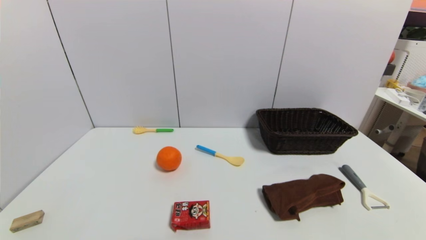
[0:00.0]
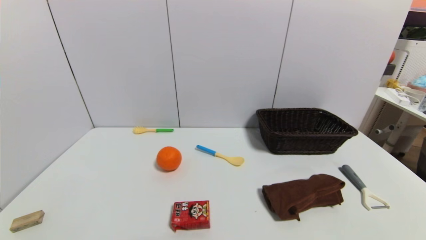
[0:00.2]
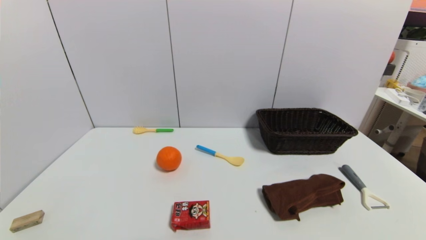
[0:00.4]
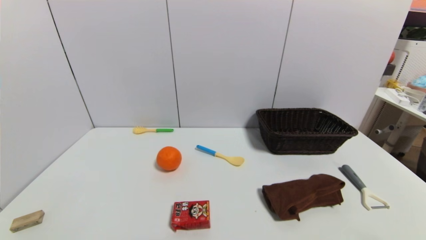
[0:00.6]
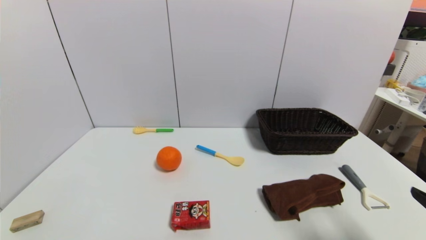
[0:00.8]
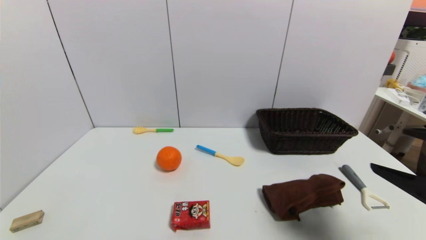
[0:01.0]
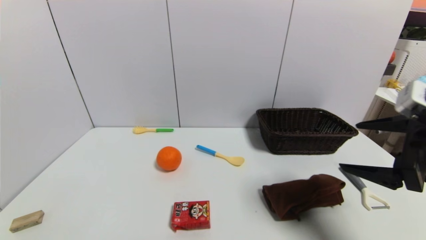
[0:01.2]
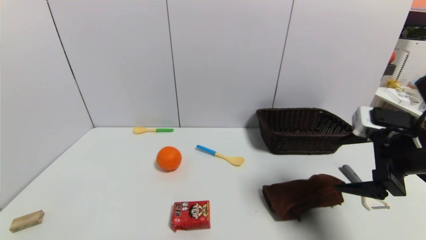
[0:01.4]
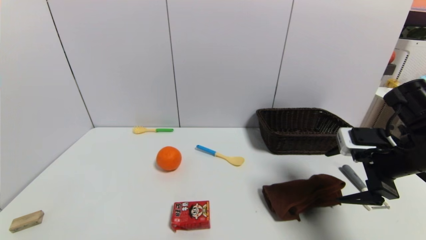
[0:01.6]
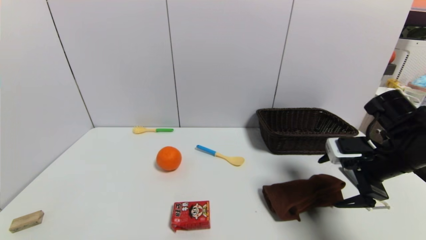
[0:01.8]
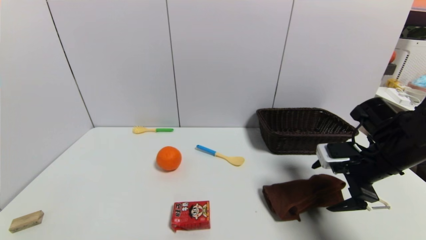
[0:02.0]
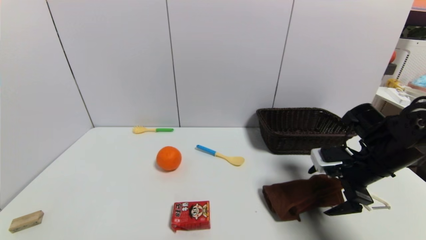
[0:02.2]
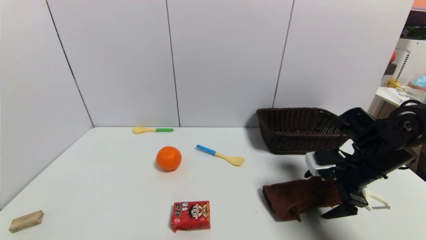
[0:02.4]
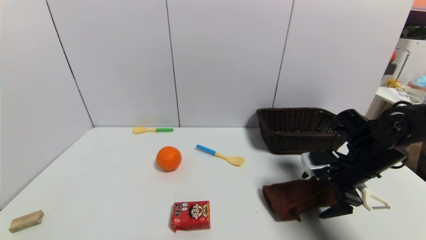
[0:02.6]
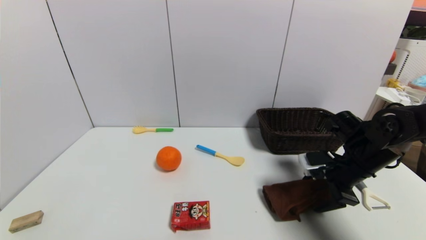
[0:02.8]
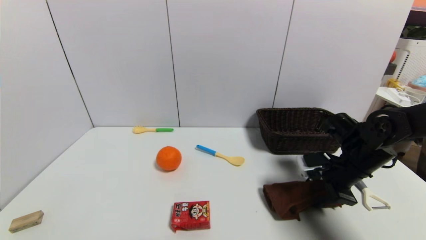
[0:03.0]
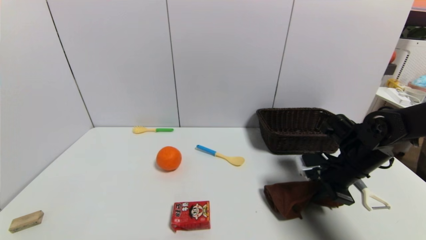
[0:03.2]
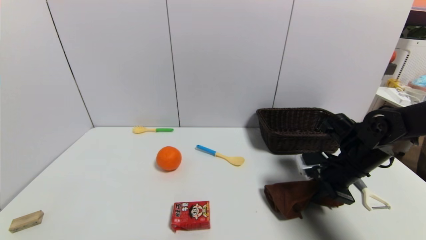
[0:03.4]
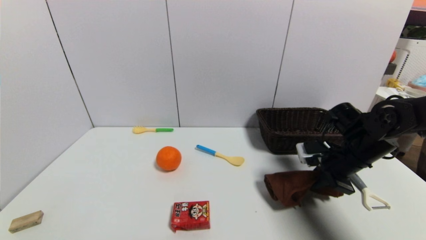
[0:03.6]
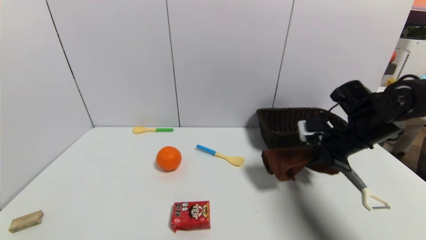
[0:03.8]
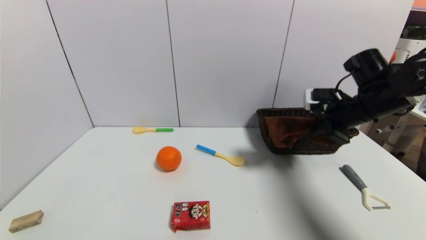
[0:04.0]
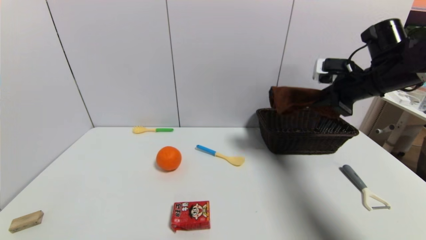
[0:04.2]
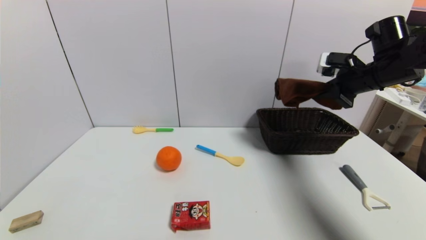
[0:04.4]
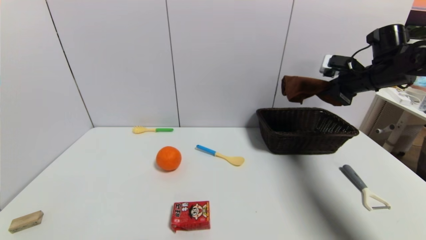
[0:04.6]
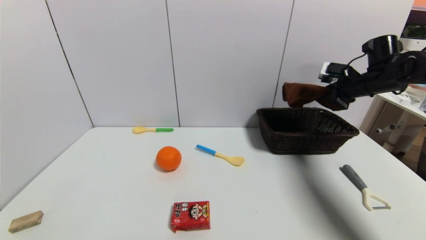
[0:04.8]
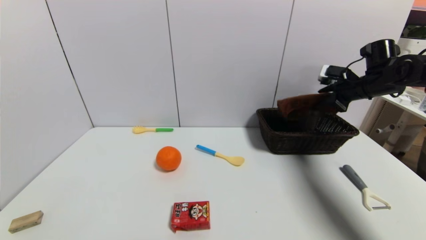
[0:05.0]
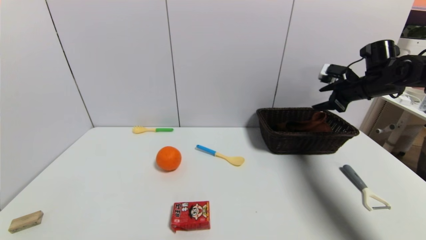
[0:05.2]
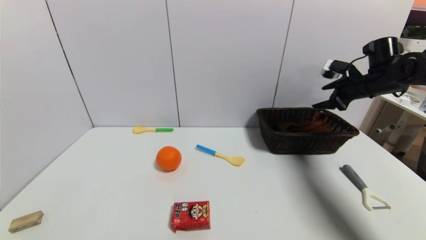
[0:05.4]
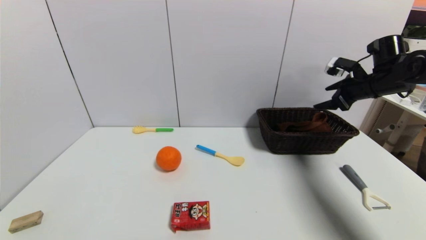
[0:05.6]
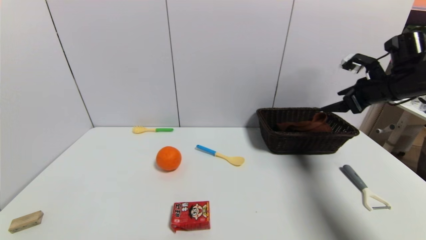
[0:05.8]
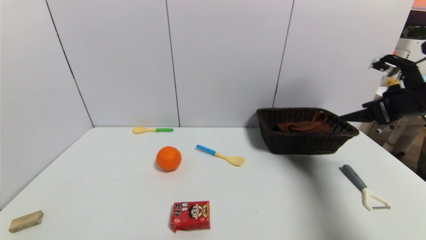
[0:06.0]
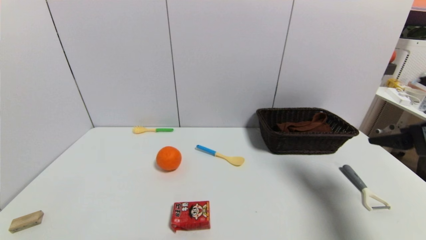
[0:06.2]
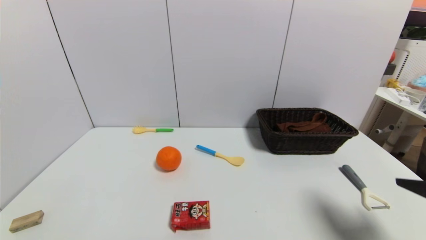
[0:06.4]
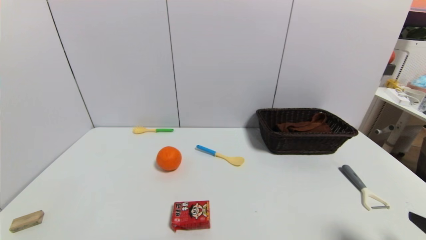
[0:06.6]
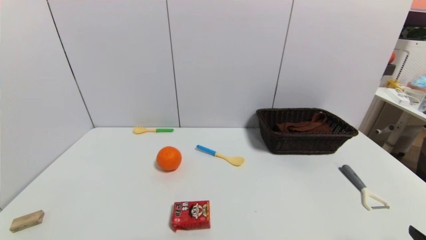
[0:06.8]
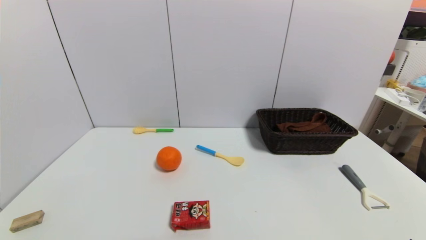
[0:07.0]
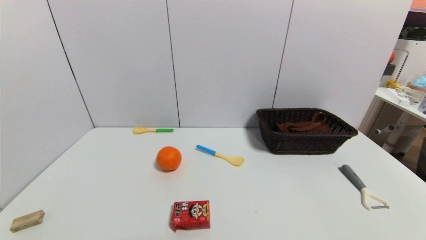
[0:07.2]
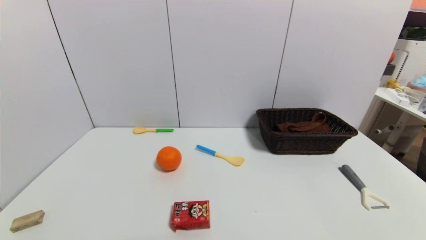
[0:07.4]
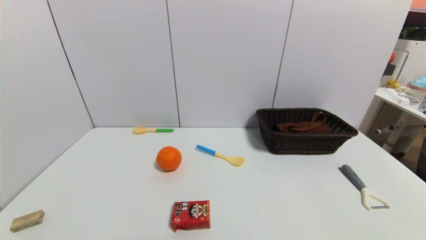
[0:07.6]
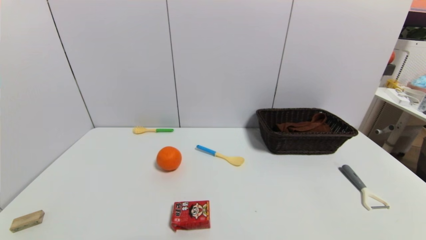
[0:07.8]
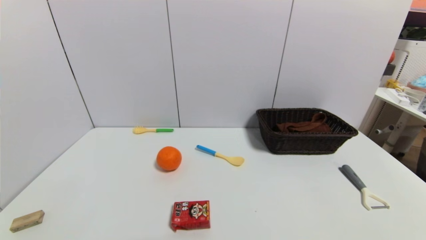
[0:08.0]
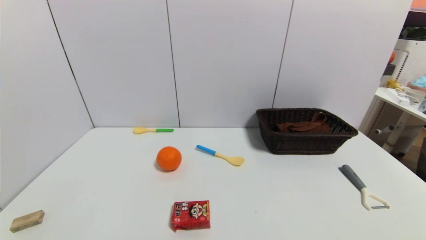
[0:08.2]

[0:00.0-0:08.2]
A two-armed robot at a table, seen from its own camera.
Task of the whole recording: use a gripper to pick the target object and place on the brown basket.
Step, 0:00.0 to 0:03.2: Grasp the brown towel with the right gripper.
Step, 0:03.4 to 0:05.8: Place the brown towel into the basket with the right gripper.
0:00.0 to 0:01.6: The right gripper heads forward and upward, covering some 30 cm.
0:01.6 to 0:03.2: The right gripper heads downward and forward, covering approximately 10 cm, and closes up.
0:03.2 to 0:05.0: The right gripper is displaced forward, upward and to the right by about 20 cm, and opens up.
0:05.0 to 0:06.6: The right gripper goes approximately 40 cm backward, and opens its fingers.

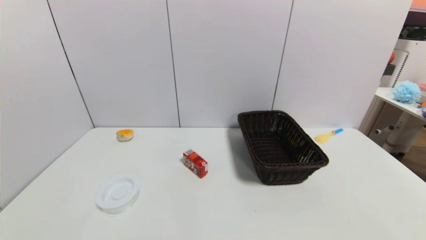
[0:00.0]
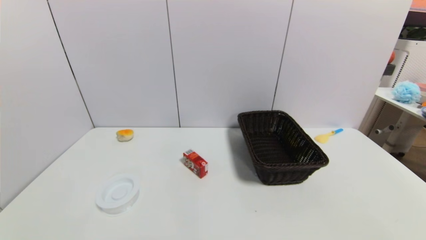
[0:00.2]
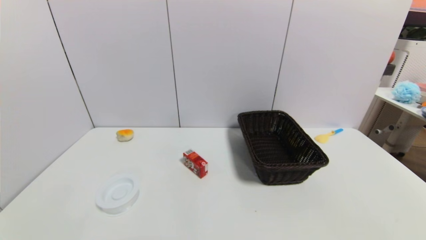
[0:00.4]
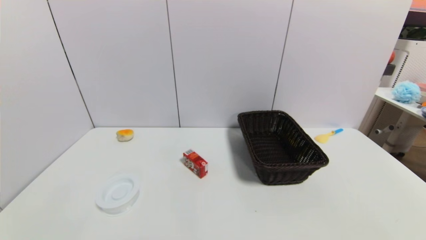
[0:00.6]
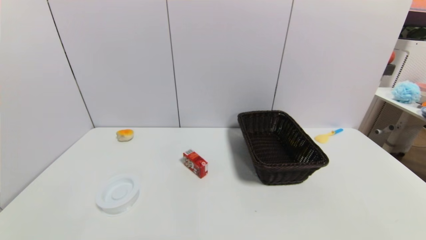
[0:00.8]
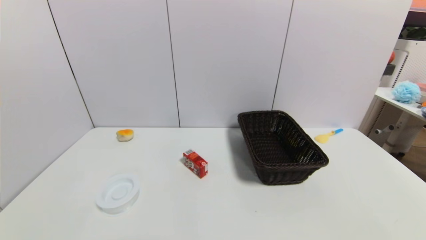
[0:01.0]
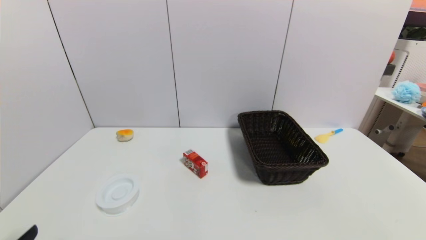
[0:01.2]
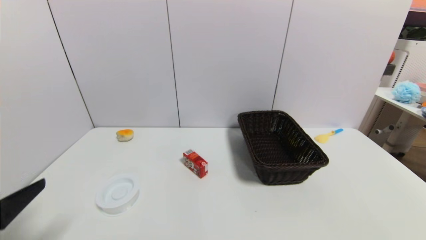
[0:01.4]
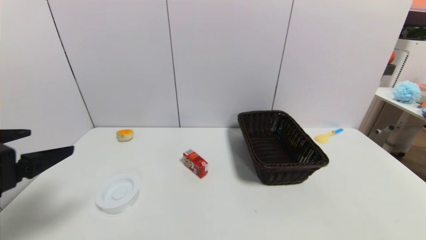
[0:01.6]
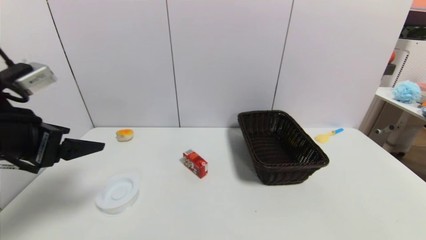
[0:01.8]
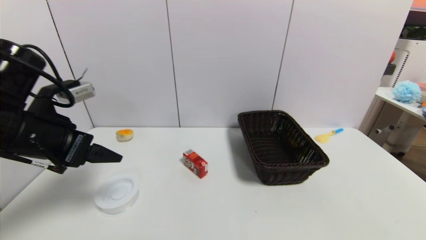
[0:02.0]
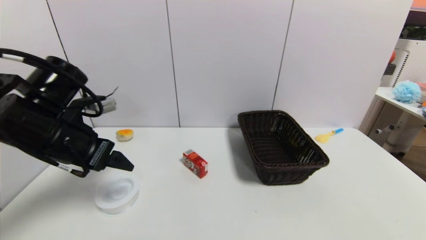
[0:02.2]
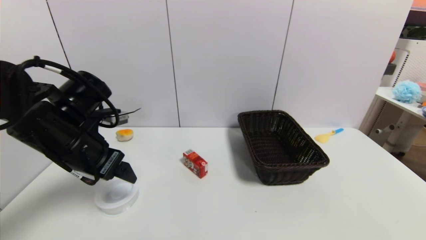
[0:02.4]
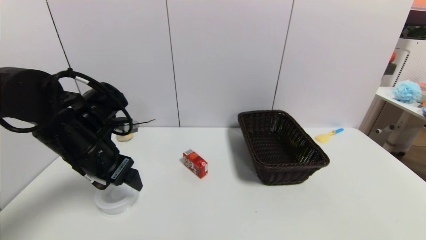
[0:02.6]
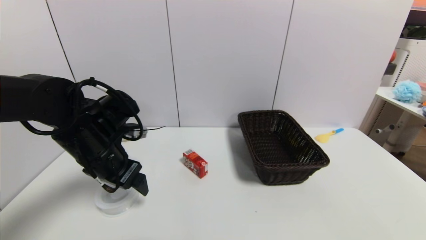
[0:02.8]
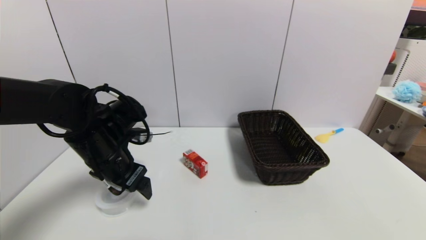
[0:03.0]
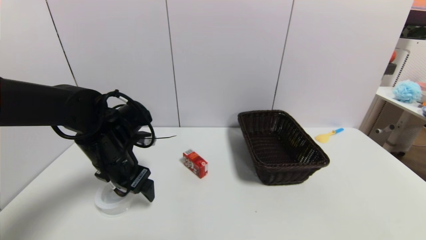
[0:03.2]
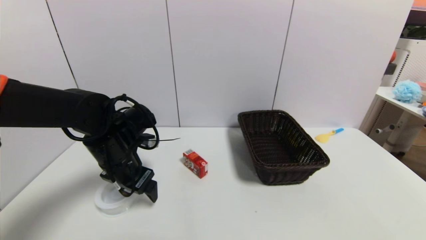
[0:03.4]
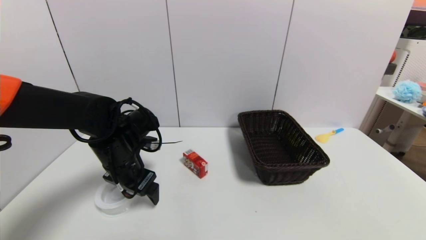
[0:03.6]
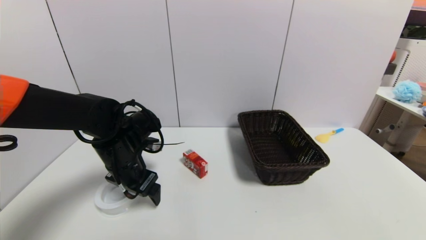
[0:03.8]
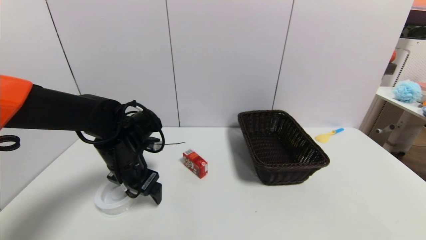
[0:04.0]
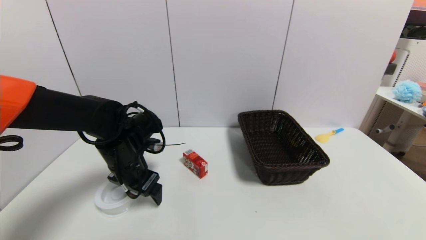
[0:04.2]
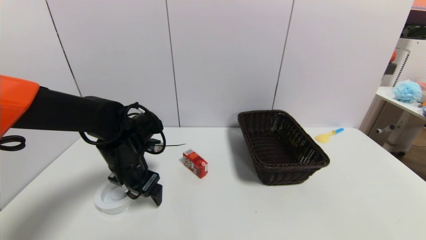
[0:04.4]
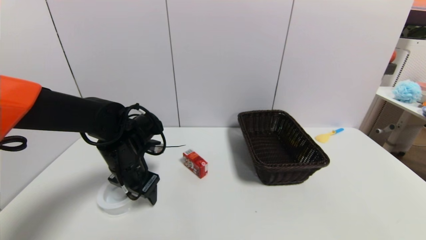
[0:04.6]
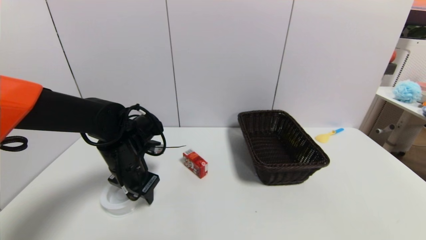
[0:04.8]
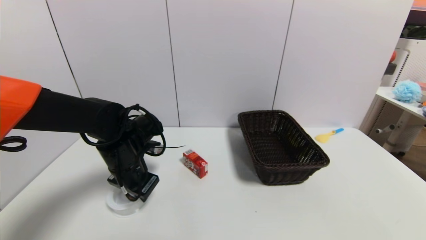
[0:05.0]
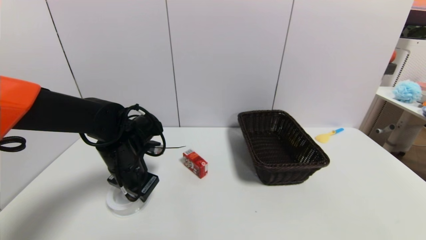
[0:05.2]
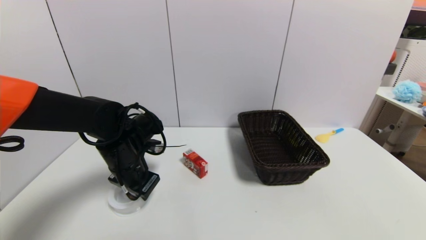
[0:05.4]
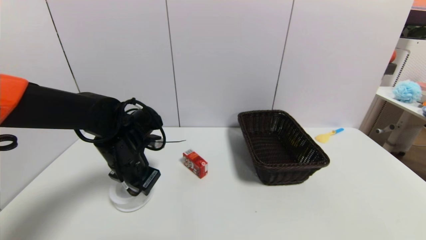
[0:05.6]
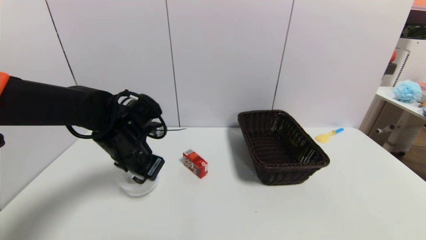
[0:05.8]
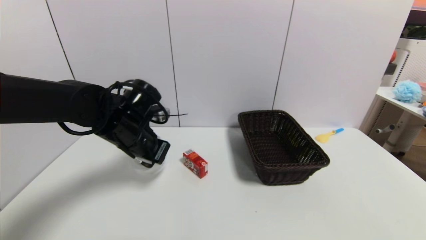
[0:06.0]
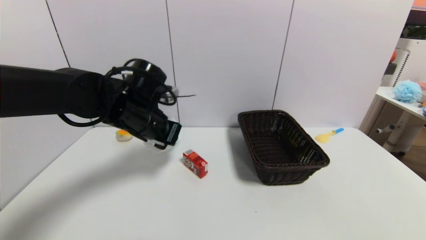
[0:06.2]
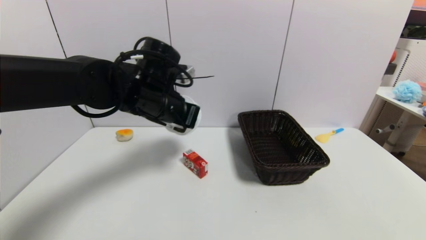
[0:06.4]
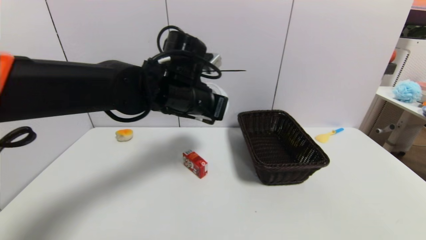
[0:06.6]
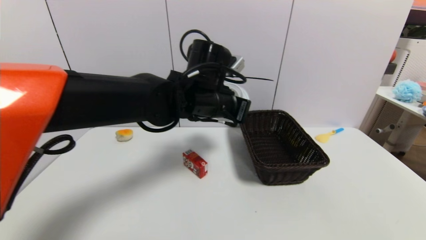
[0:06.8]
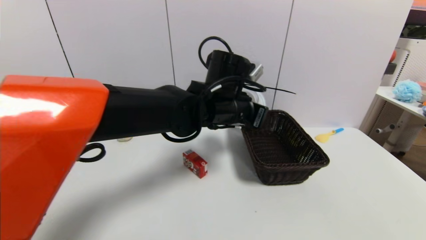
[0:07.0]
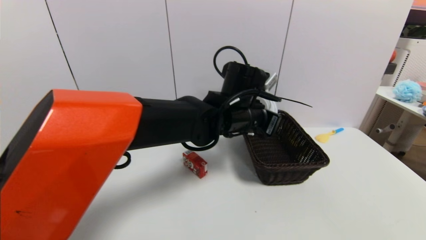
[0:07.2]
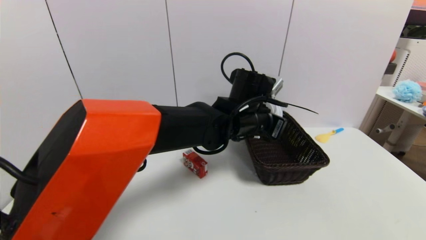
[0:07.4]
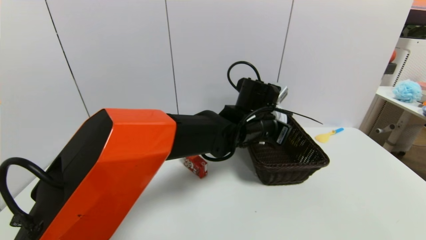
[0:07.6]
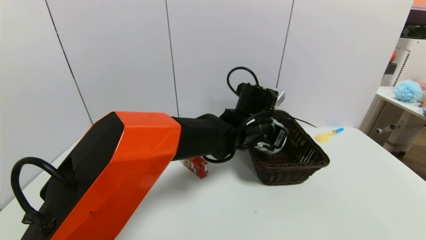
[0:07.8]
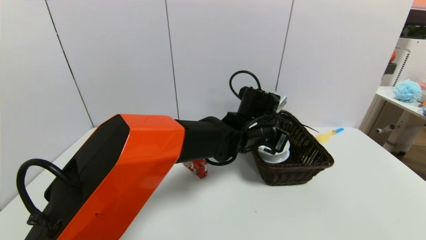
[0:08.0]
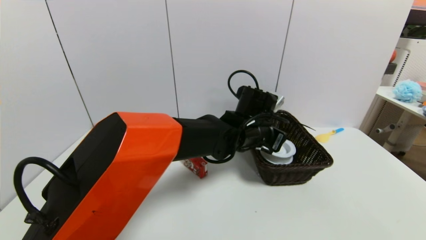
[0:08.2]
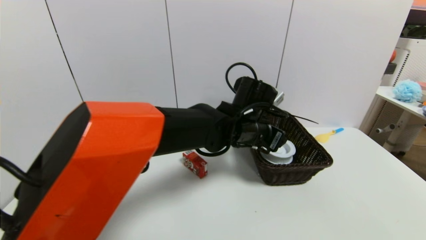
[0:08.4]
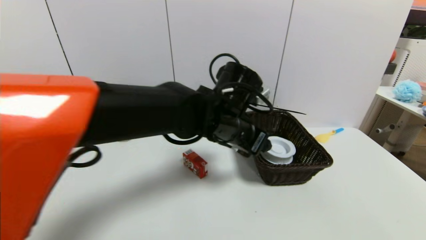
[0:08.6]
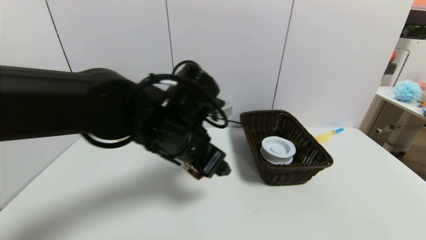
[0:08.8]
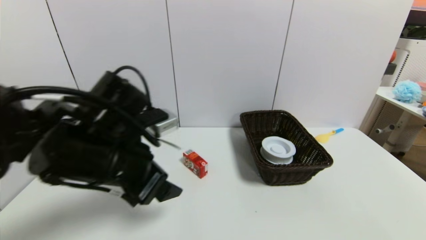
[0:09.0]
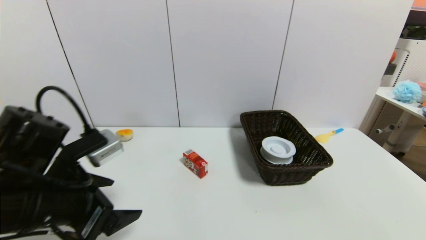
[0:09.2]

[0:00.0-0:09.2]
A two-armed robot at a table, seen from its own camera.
Task of the whole recording: use a gripper to pick the target object and place on the brown basket.
Step, 0:00.0 to 0:05.2: Grasp the tape with the left gripper.
Step, 0:05.4 to 0:08.6: Place the tape into the basket with the left gripper.
0:00.0 to 0:01.6: The left gripper goes some 25 cm upward and forward.
0:01.6 to 0:03.0: The left gripper moves forward, to the right and downward, approximately 20 cm.
0:03.0 to 0:04.6: The left gripper changes place by about 5 cm.
0:04.6 to 0:06.2: The left gripper shifts roughly 10 cm upward, and closes its fingers.
0:06.2 to 0:07.6: The left gripper moves to the right, roughly 20 cm.
0:07.6 to 0:09.2: The left gripper is displaced to the left and backward by about 35 cm, and opens up.
